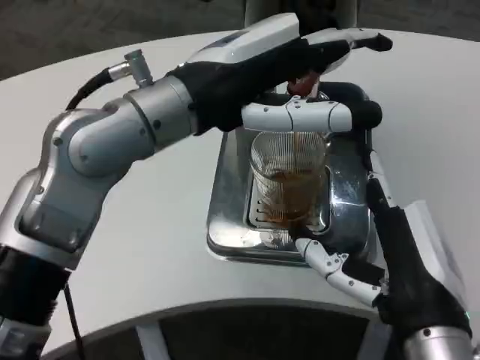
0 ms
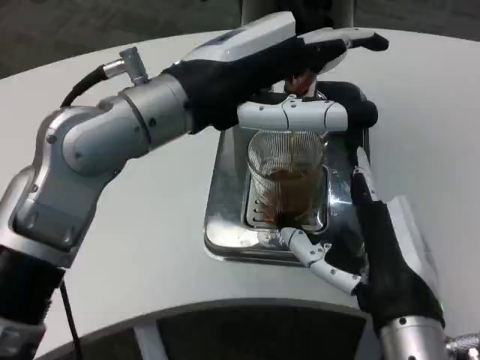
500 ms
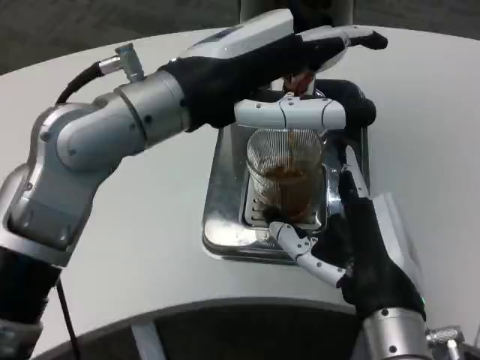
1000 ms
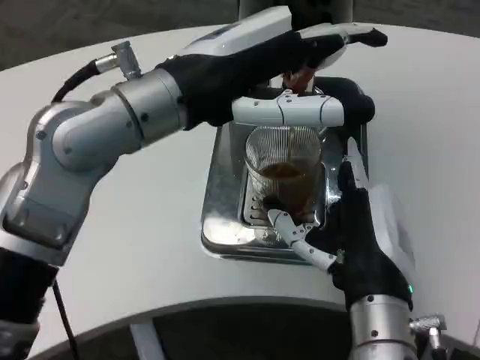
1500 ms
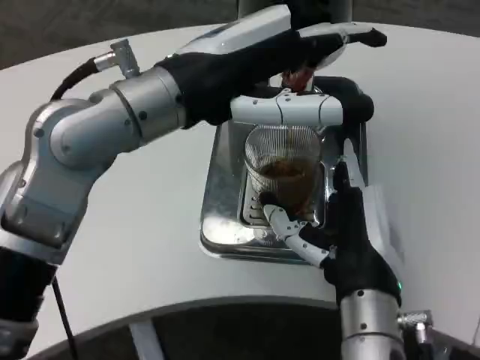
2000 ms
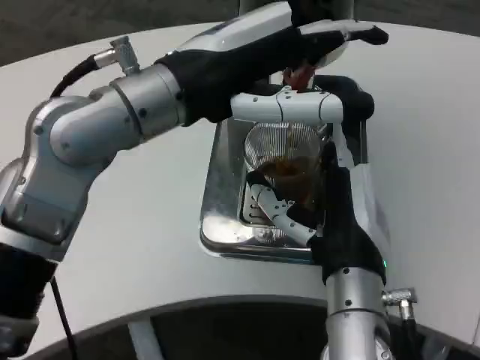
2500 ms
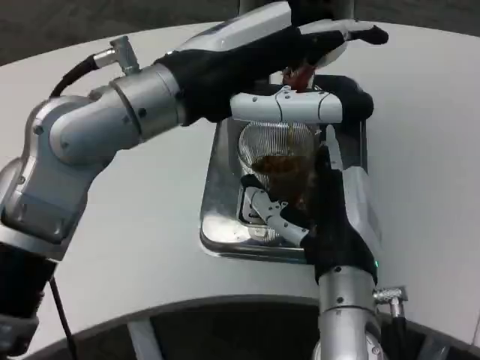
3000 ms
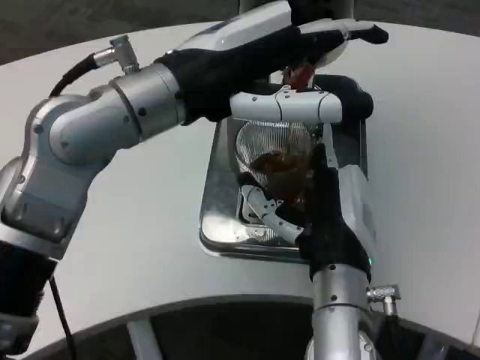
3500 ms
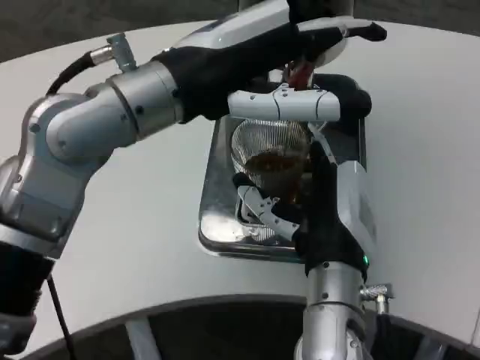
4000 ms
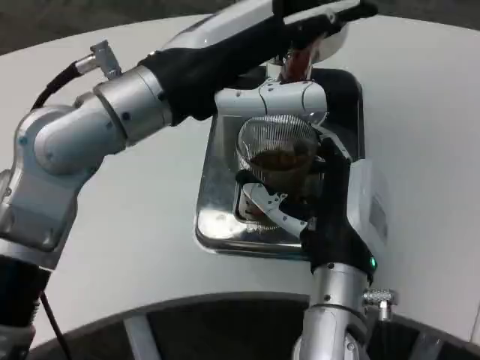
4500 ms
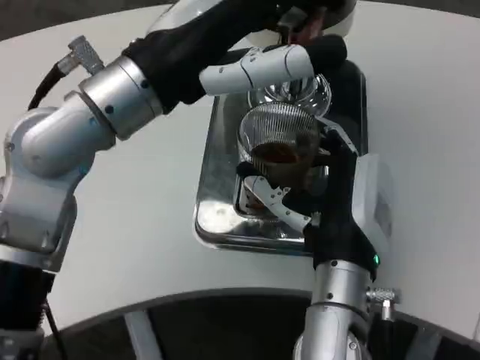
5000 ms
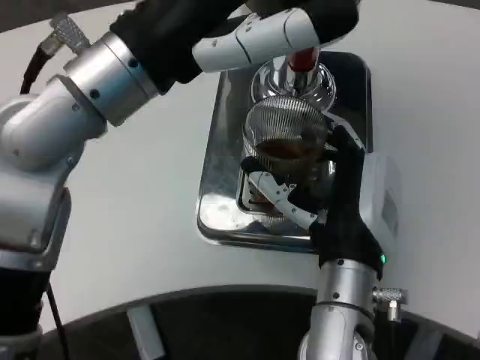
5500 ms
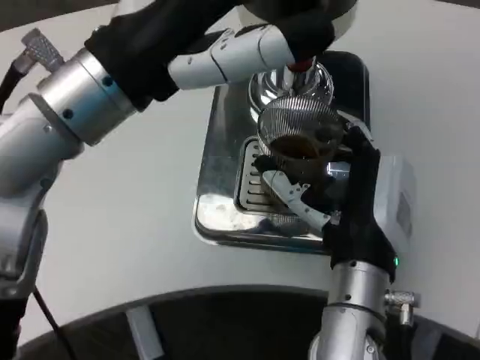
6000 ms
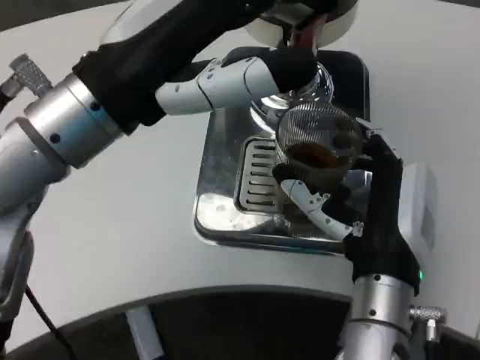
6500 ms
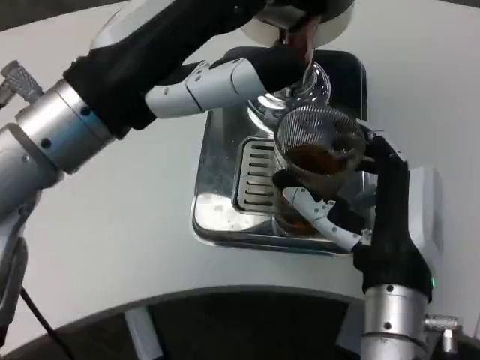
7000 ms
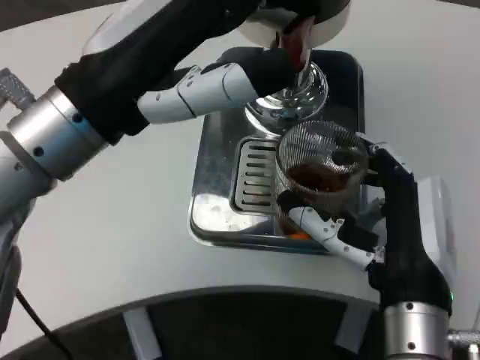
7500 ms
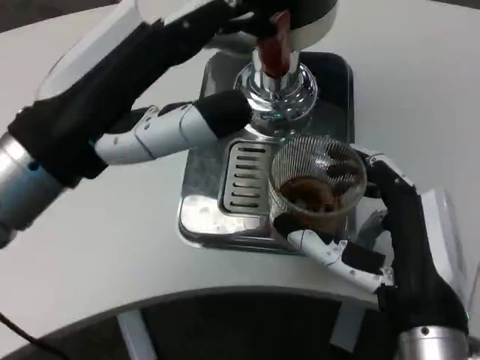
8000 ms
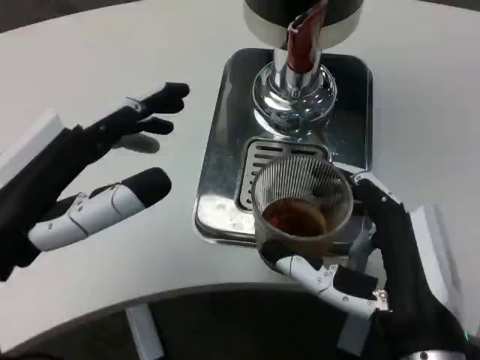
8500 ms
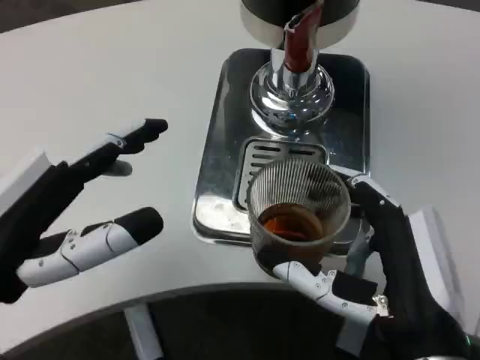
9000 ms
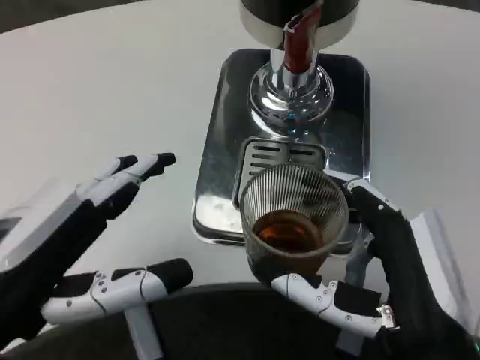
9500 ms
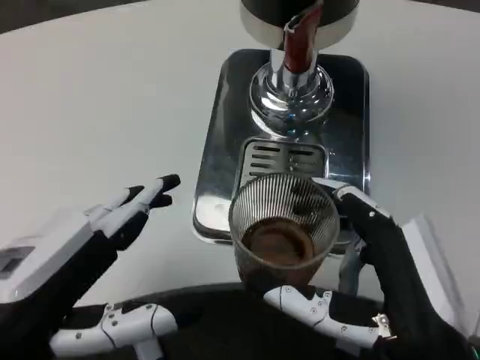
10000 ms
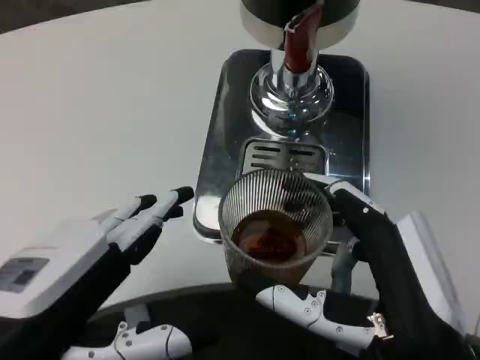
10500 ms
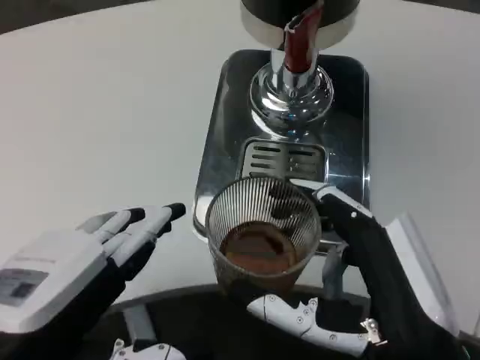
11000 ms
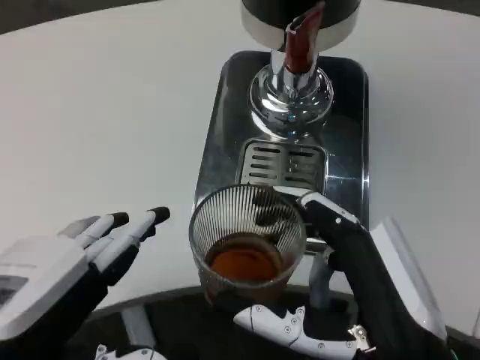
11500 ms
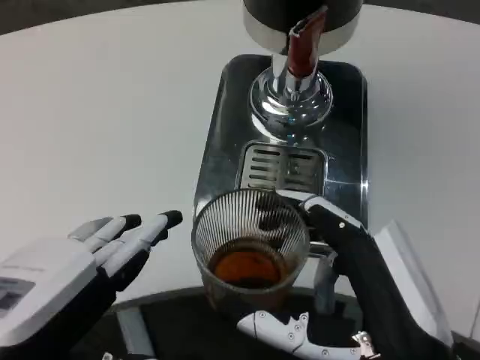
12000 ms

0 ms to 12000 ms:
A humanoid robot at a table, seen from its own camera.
Task of the whole recording: Grasp the cup under the faucet to collect the drink, then remove the cup.
0 ms to 2000 ms: The right hand travels forward by roughly 5 cm.
6000 ms to 8000 ms: The right hand is displaced backward and to the right by approximately 10 cm; the left hand changes place by approximately 5 cm.
8000 ms to 10000 ms: The left hand is displaced backward and downward by approximately 10 cm.

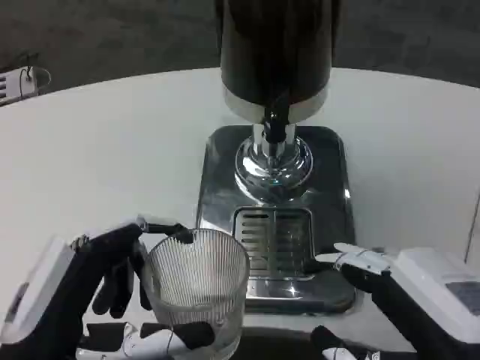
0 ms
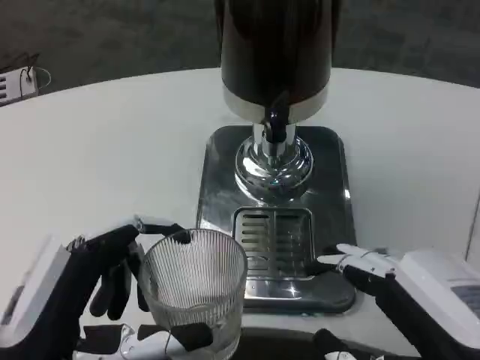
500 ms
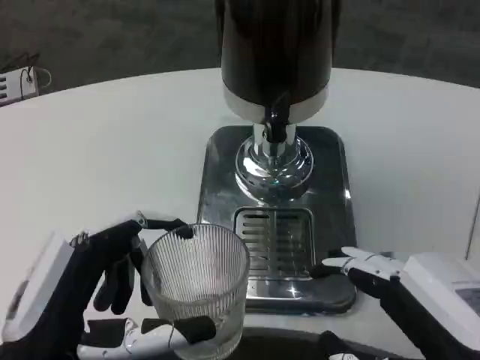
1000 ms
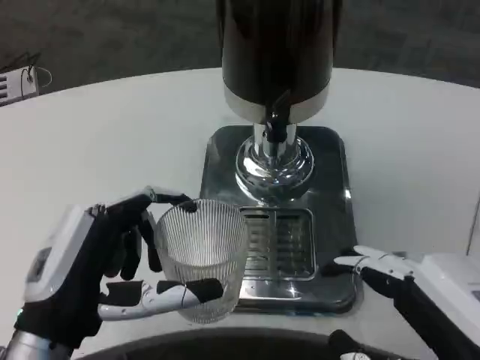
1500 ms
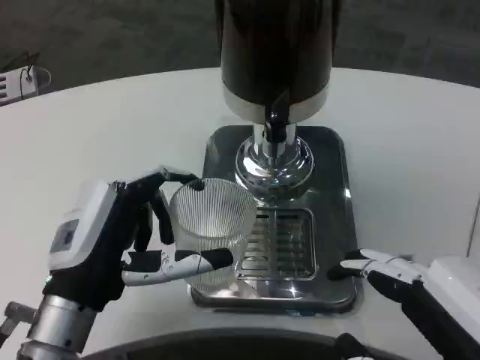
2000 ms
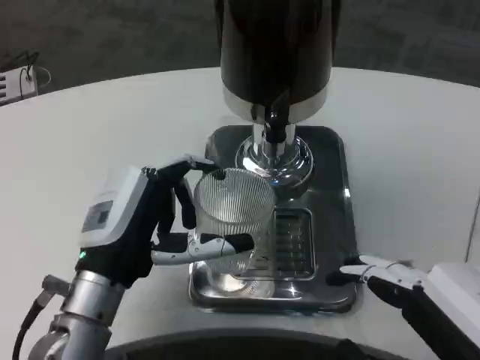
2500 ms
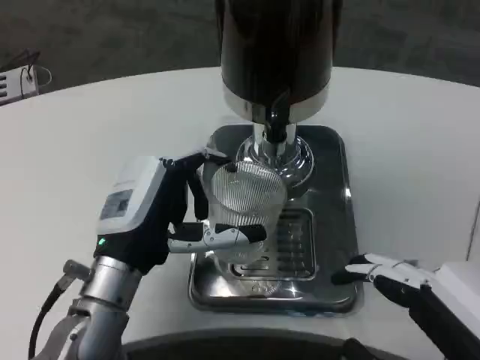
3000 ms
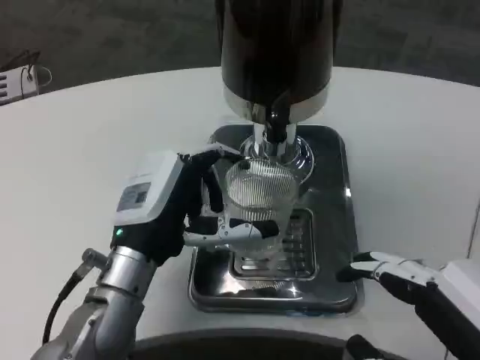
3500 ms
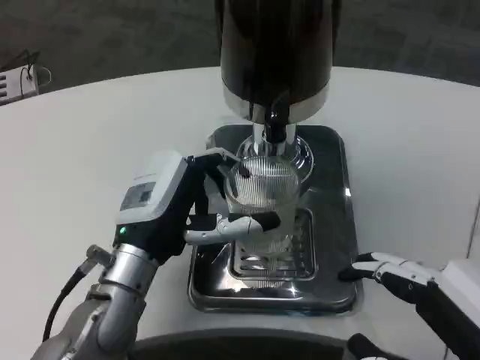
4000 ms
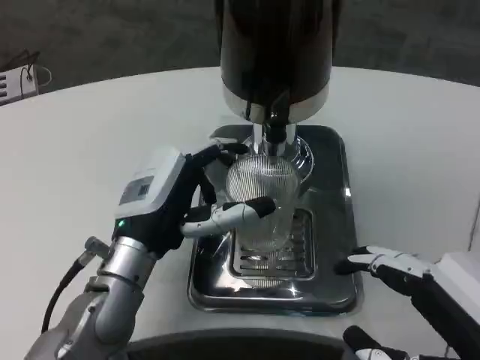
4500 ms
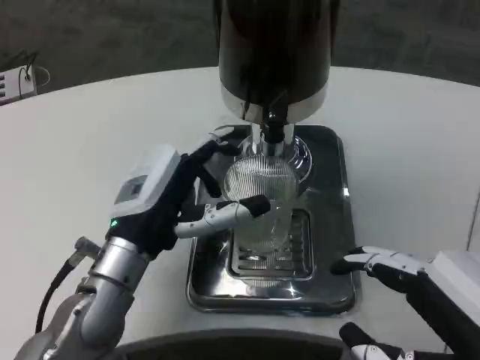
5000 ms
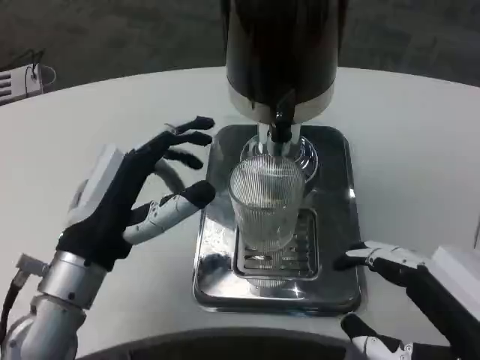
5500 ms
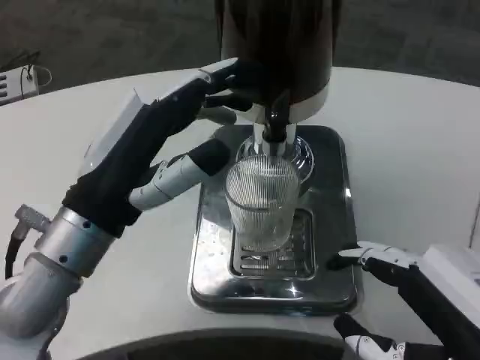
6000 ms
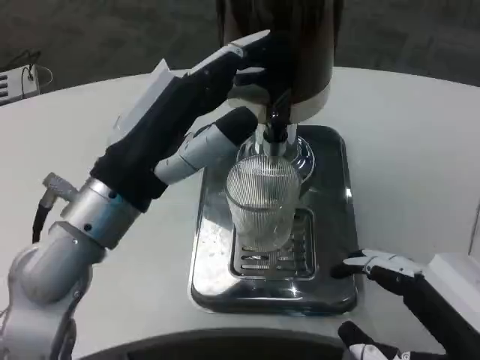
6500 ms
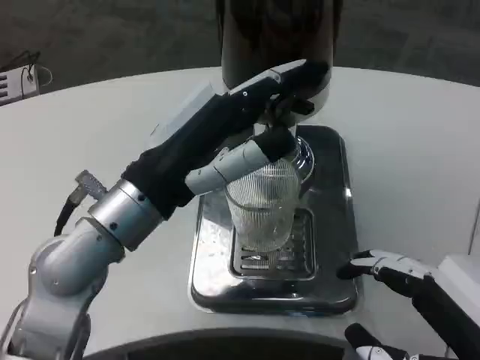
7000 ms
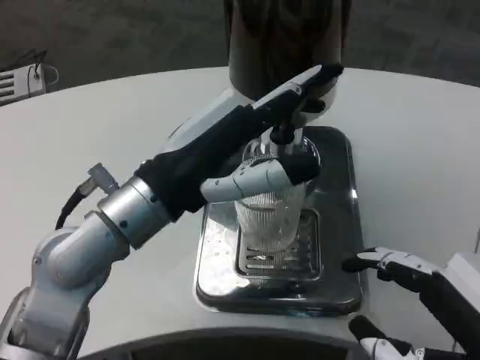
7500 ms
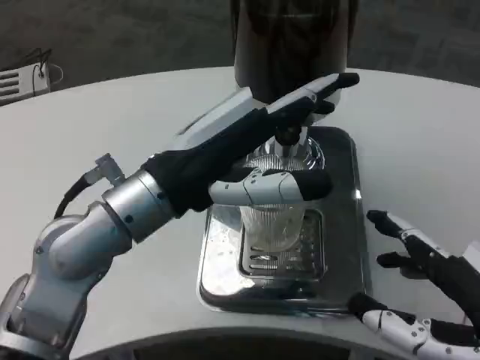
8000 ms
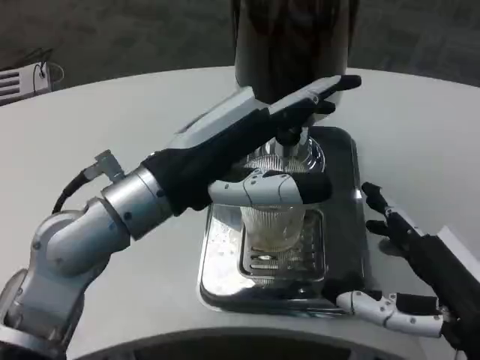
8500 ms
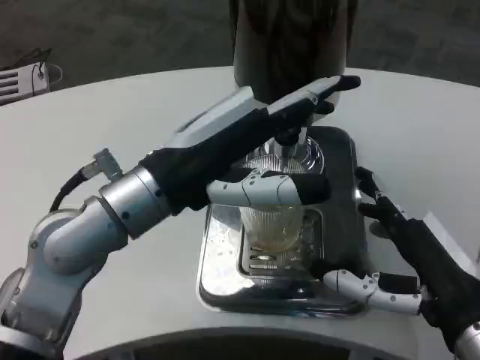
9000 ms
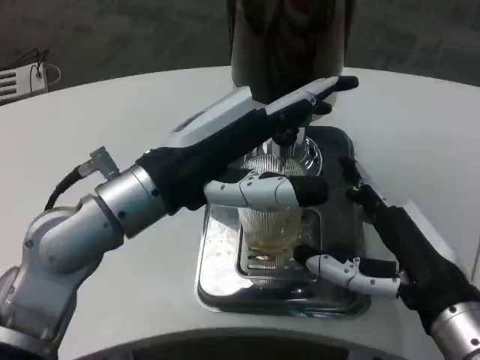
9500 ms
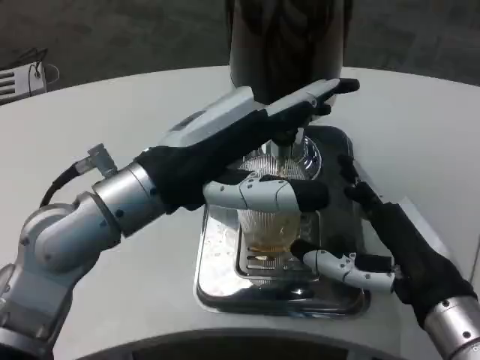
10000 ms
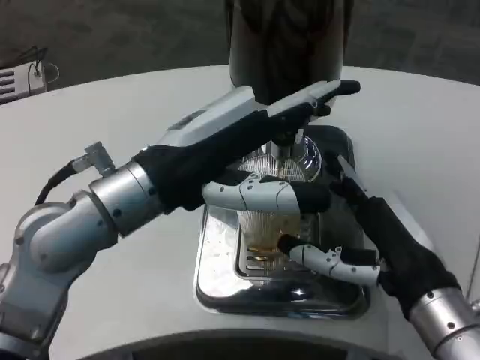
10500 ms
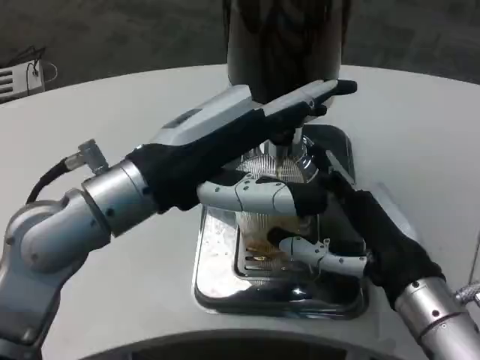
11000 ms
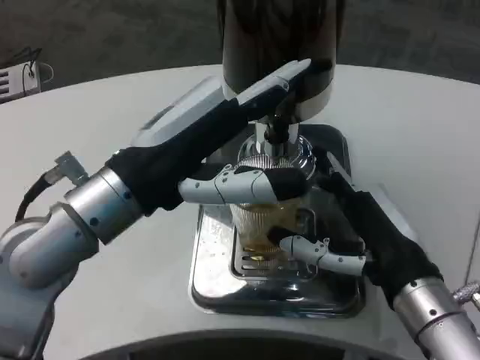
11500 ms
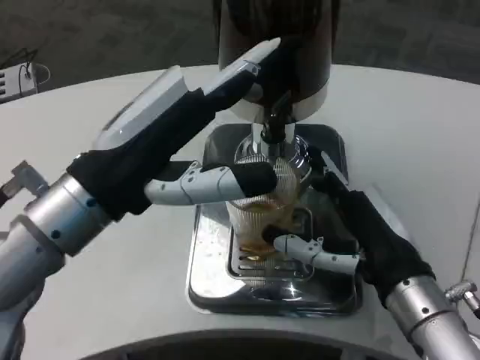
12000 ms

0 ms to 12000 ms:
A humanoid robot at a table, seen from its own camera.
Task of the whole recording: Grasp the cup under the faucet to collect the drink, then remove the cup.
0 ms to 2000 ms: The left hand goes roughly 10 cm forward.
2000 ms to 4000 ms: The left hand goes approximately 5 cm forward.
4000 ms to 6000 ms: The left hand heads upward, covering some 10 cm.
6000 ms to 8000 ms: The left hand ends up some 5 cm from where it was.
8000 ms to 10000 ms: The right hand shifts roughly 10 cm forward.

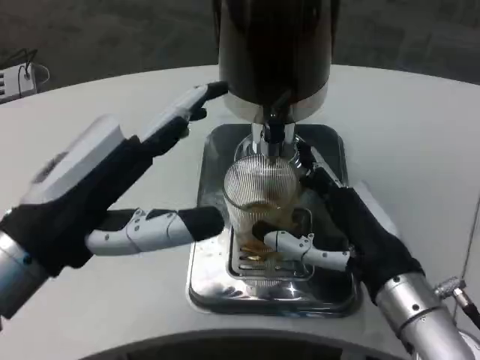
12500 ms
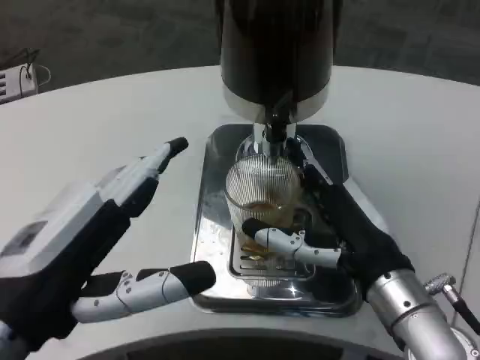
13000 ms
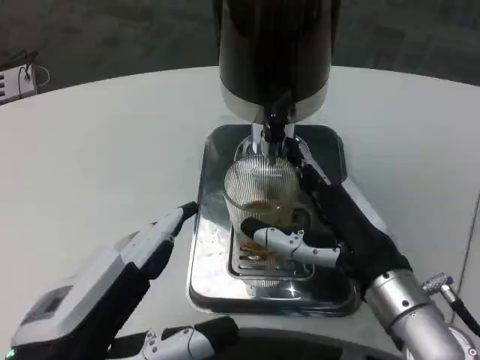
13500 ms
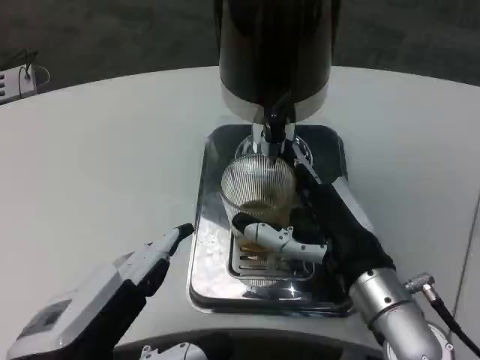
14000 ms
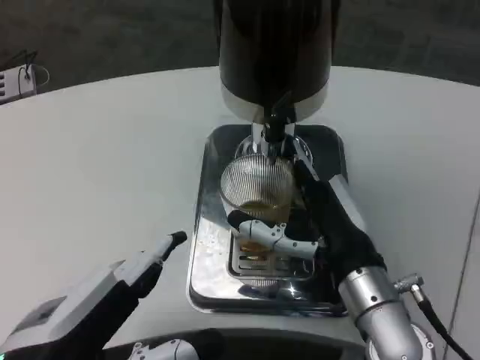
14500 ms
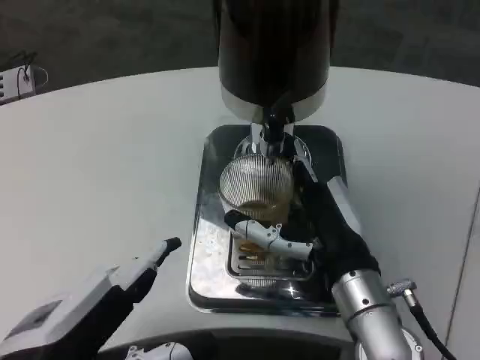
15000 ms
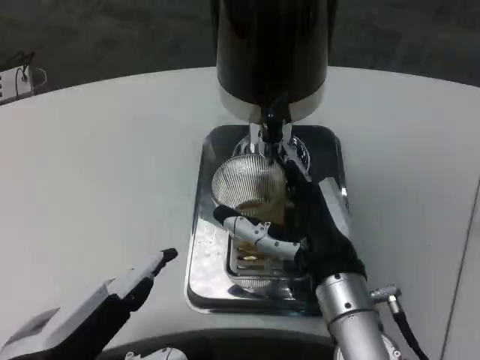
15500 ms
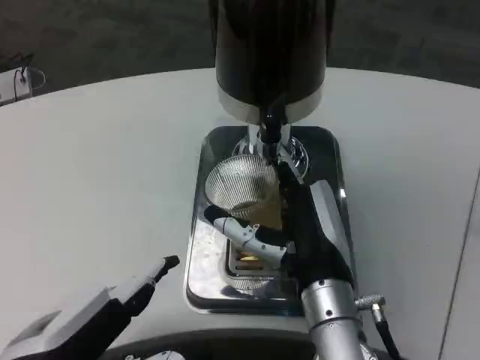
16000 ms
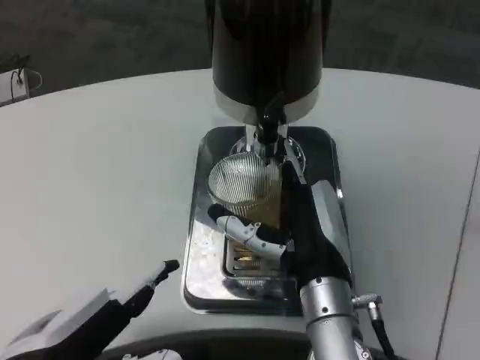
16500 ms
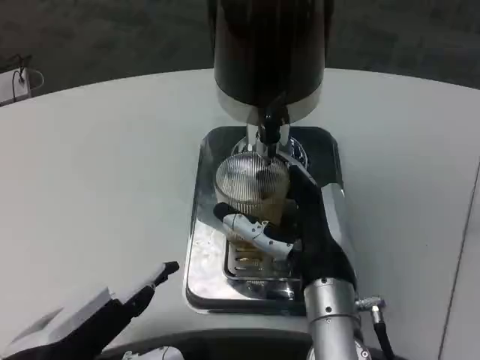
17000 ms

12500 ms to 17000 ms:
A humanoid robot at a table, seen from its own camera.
Task of the whole recording: Grasp the cup under the faucet to collect the drink, then remove the cup.
12500 ms to 14500 ms: The left hand heads backward and downward, covering roughly 10 cm.
14500 ms to 17000 ms: The right hand shifts approximately 5 cm to the left.
